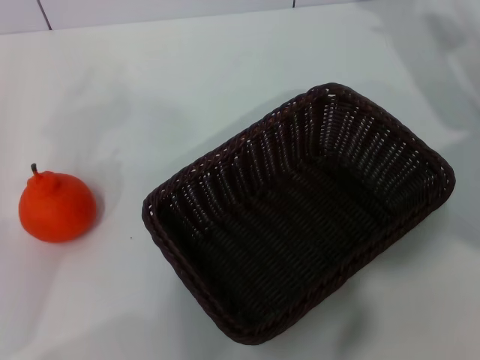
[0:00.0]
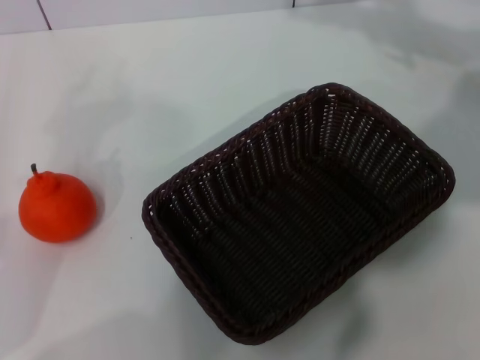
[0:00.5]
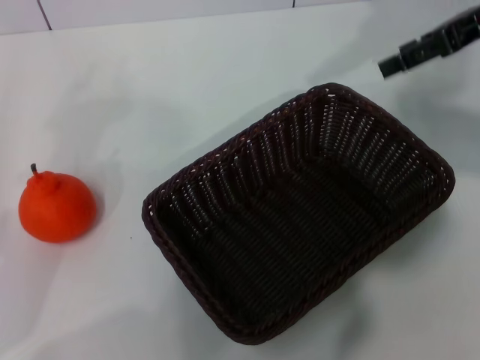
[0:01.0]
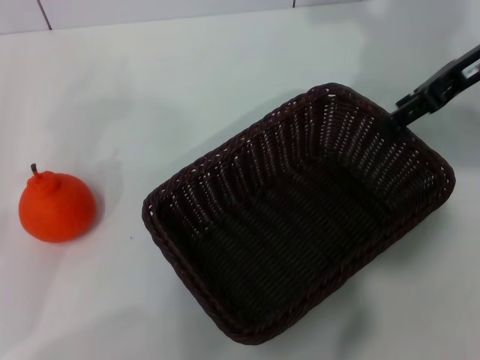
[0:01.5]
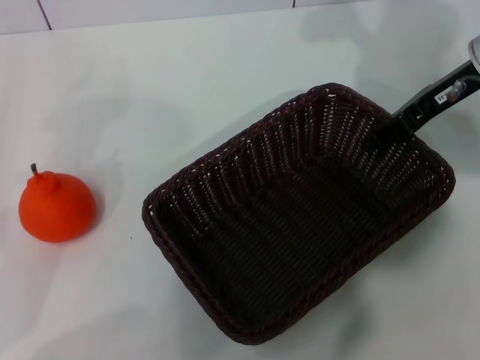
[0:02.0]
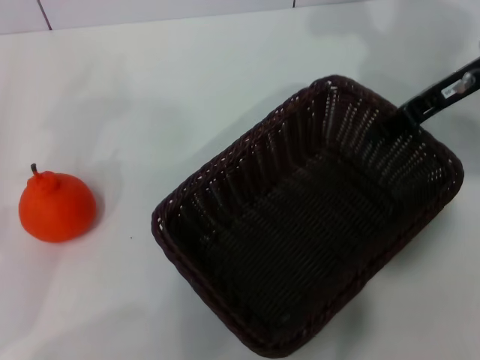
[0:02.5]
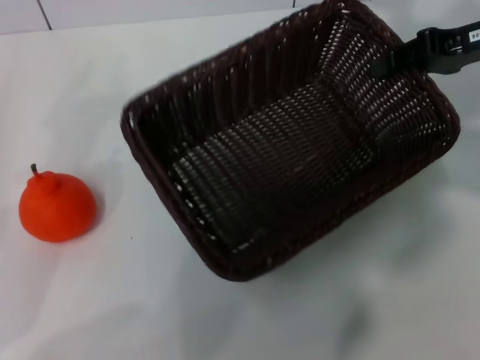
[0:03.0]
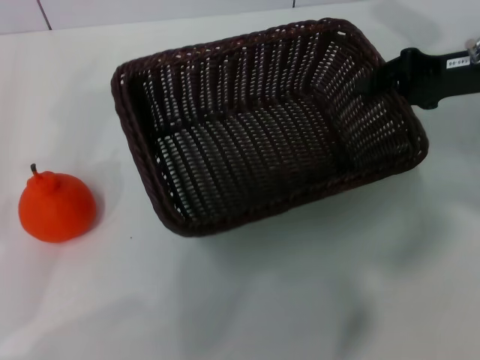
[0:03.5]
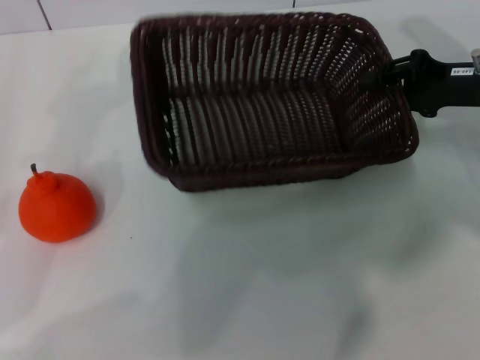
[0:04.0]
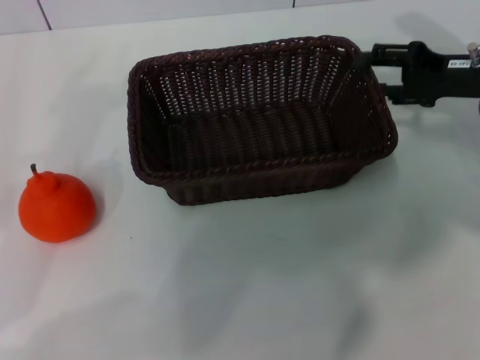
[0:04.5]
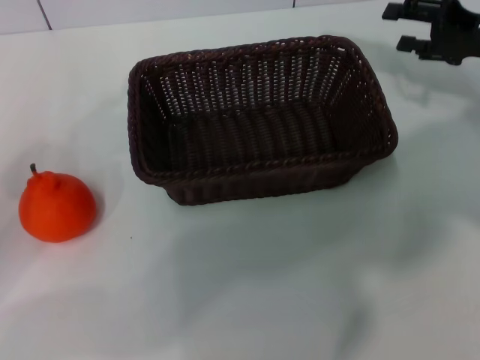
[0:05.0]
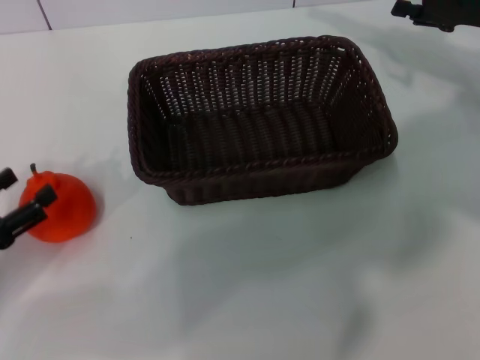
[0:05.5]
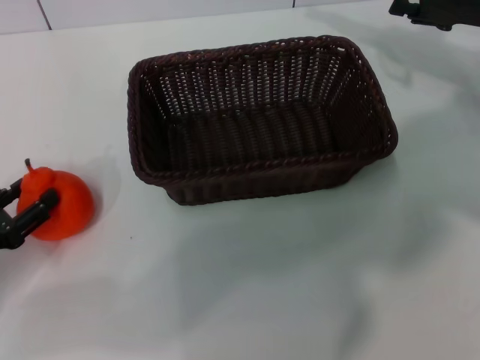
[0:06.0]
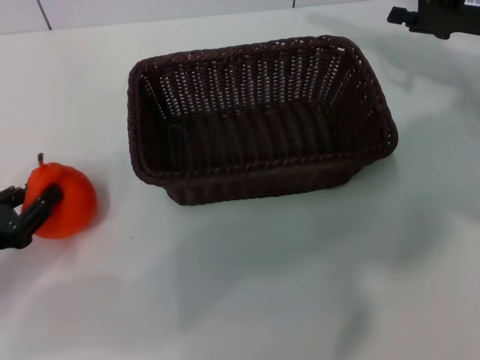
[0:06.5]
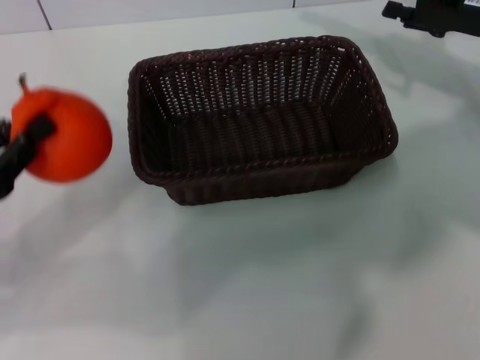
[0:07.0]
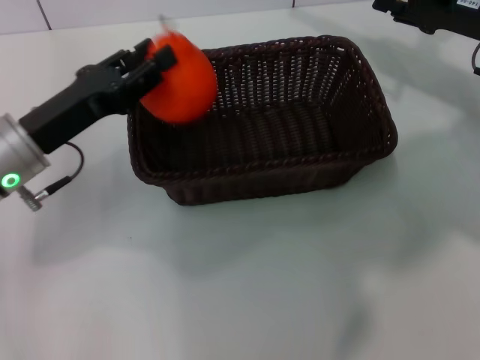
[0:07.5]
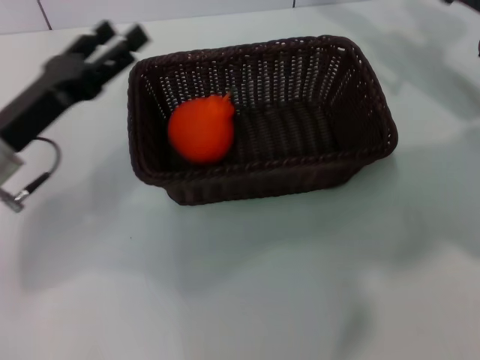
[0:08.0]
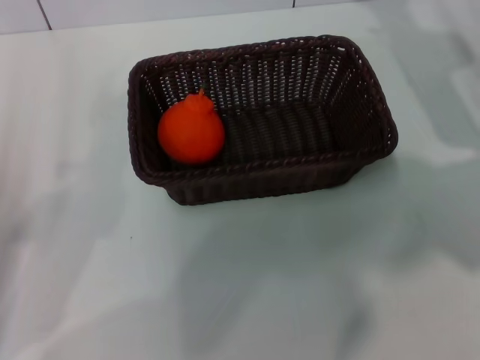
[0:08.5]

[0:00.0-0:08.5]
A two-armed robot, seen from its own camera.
Task of the whole recording: the right gripper pick up the black basket and place it horizontally in the middle of the table, the left gripper pick up the orange and place it into the black basket.
Step, 0:00.0 to 0:02.5: Pick up the dark basket with the right gripper.
Step, 0:03.0 to 0:04.5: Place the dark basket in the center of view with the right gripper.
Step, 0:05.0 to 0:06.5: Pick up the orange with the left gripper.
Step, 0:07.0 to 0:07.5: Place the orange into the dark basket with the left gripper.
0:00.0 to 0:02.0: The right gripper shifts some 5 cm upward.
0:02.0 to 0:04.0: The right gripper heads downward, covering roughly 5 cm, and closes up.
0:04.0 to 0:06.5: The left gripper moves roughly 5 cm, and opens and closes again; the right gripper opens its fingers.
0:06.5 to 0:08.5: The left gripper goes forward and returns, roughly 10 cm each way, and opens.
